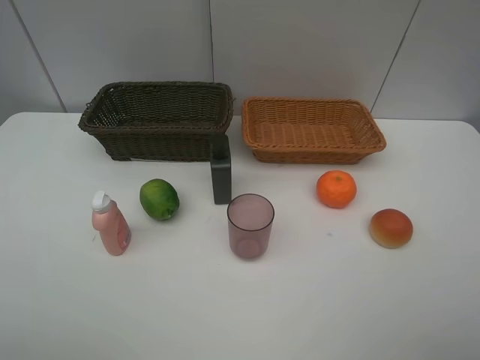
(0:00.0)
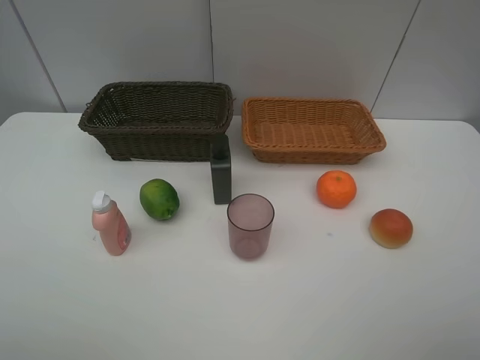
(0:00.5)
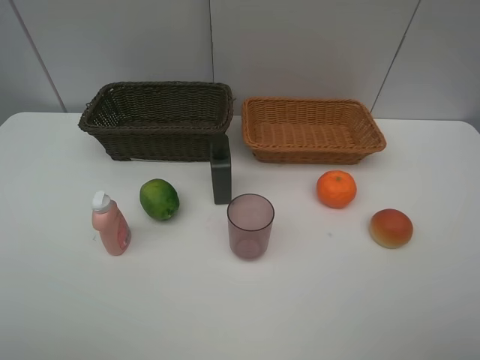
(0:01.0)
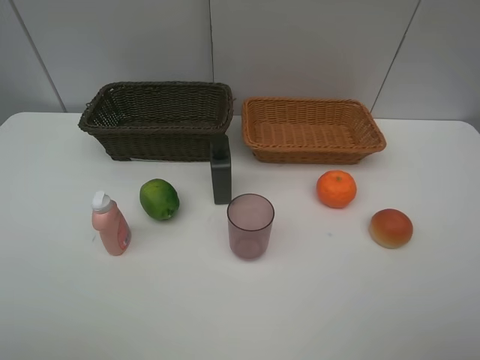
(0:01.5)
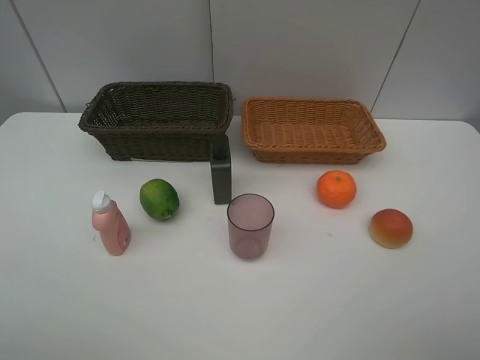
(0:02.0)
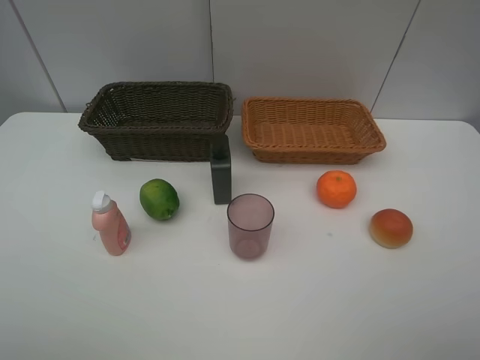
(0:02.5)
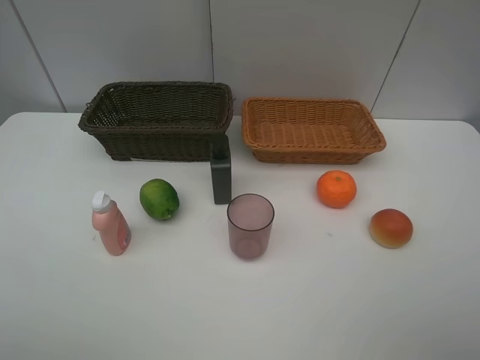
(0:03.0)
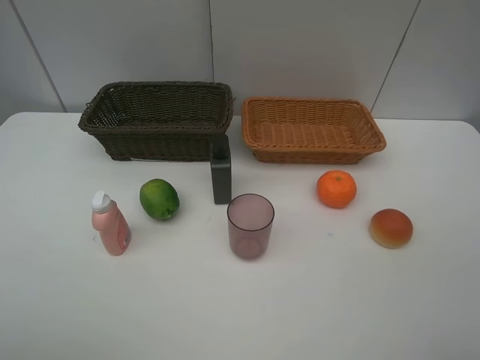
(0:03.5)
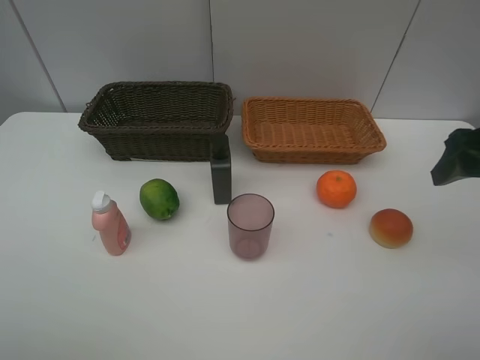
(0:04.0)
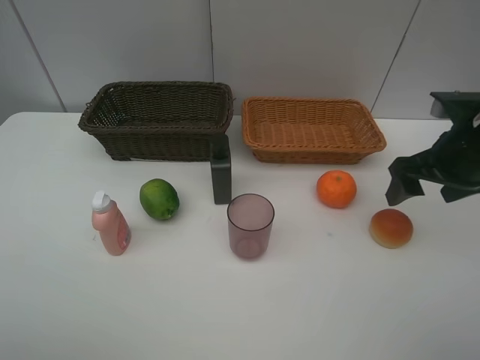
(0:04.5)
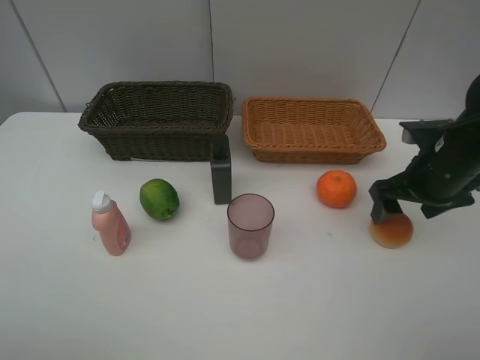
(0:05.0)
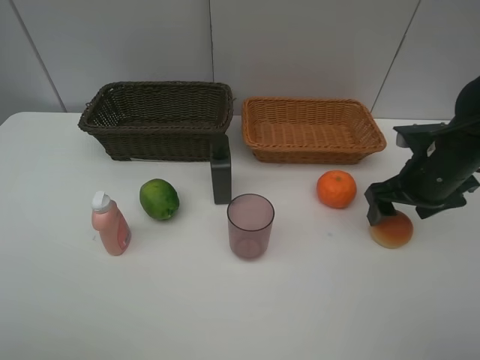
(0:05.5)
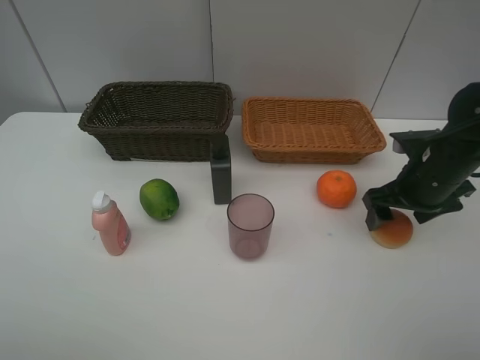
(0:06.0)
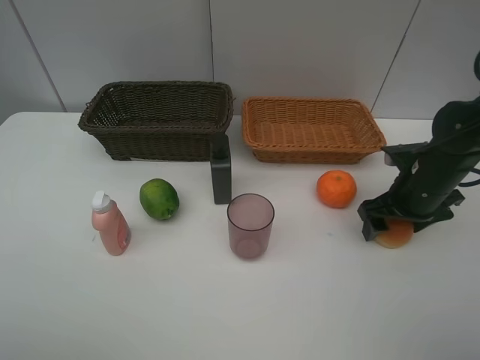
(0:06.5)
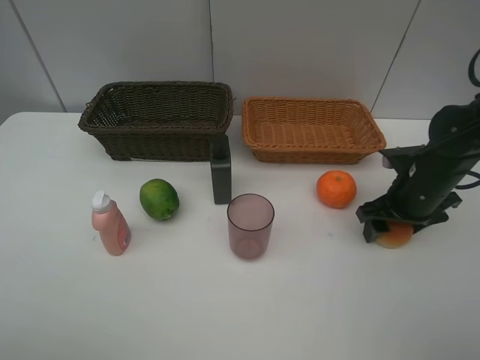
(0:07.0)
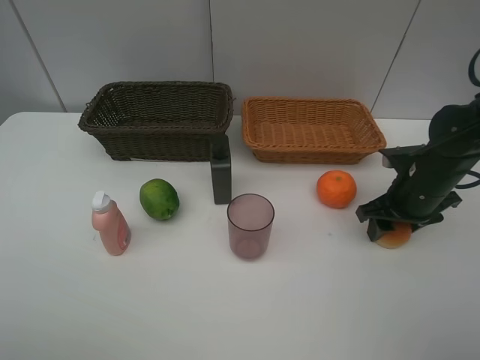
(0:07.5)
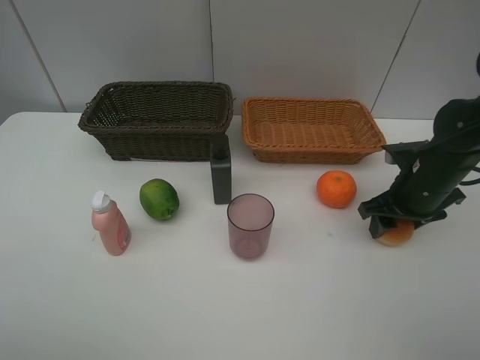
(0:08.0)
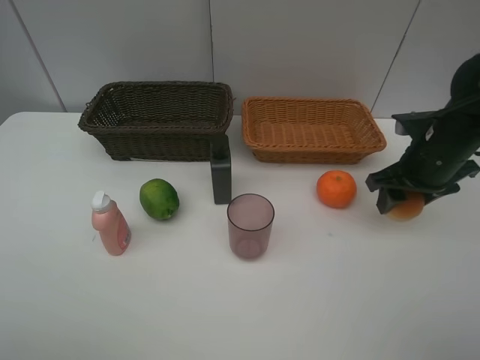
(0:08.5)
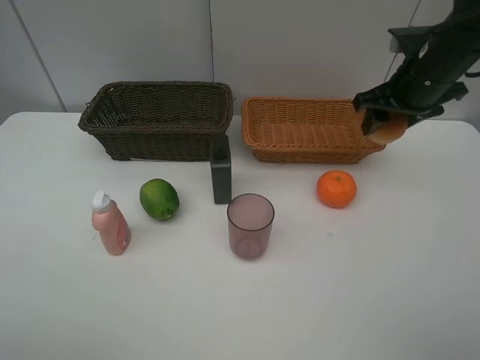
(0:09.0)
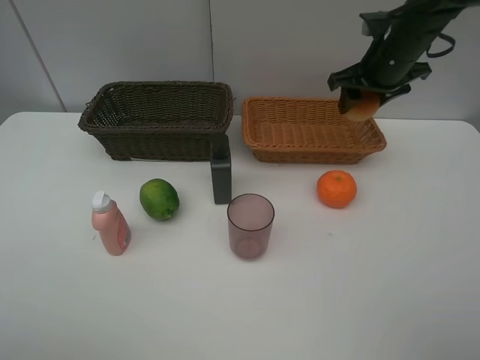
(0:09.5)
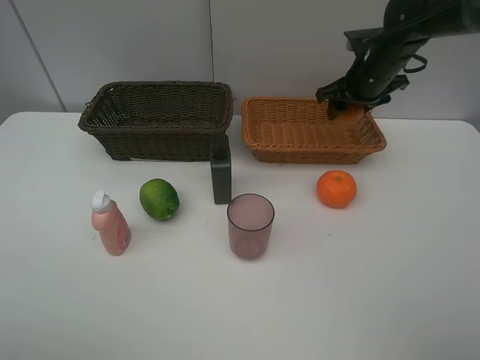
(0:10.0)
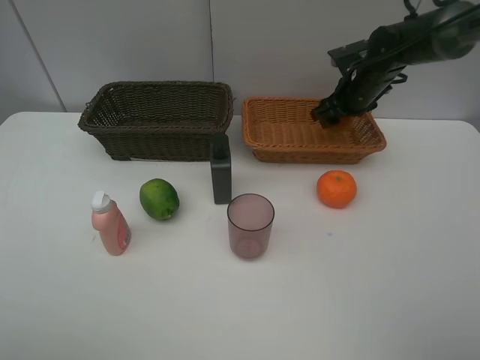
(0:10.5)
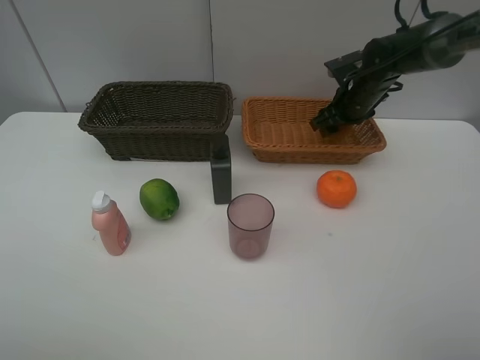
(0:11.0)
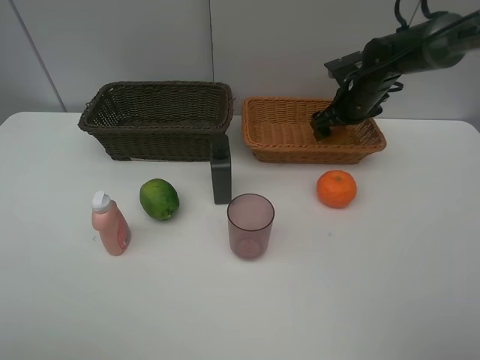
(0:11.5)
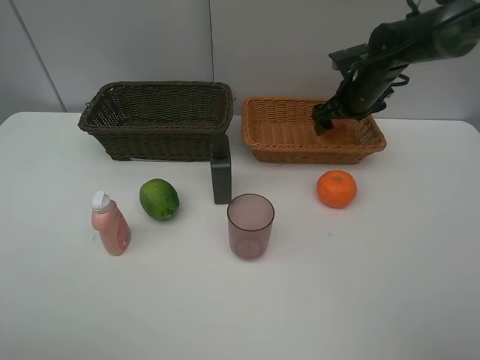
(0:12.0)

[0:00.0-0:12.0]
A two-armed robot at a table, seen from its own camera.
Task of the whole recording: place multiple objects separately in different baskets.
0:00.0 to 0:02.0: The two grippers keep their place.
0:02.0 to 0:04.0: The right gripper shifts some 20 cm forward.
0:04.0 to 0:06.0: The right gripper shifts roughly 15 cm downward and forward.
0:06.0 to 0:08.0: The right gripper closes up.
0:08.0 to 0:10.0: The right gripper shifts about 20 cm forward and upward.
0:10.0 to 0:12.0: The right gripper opens.

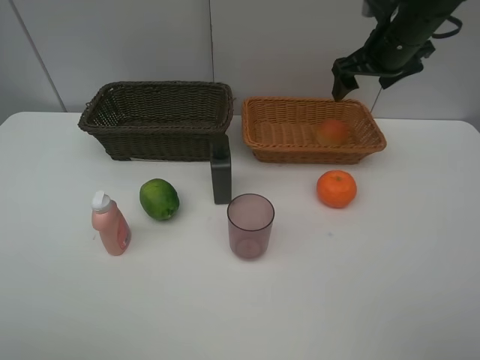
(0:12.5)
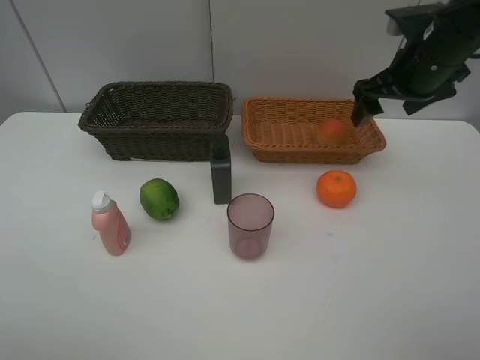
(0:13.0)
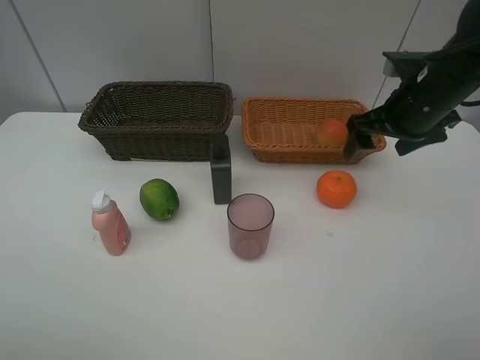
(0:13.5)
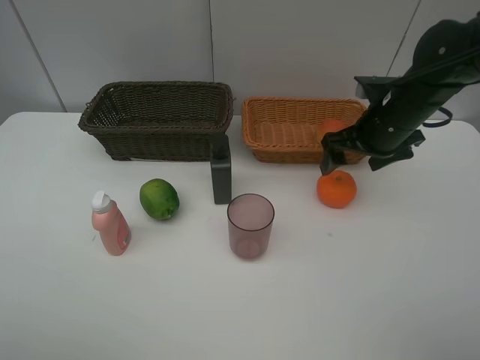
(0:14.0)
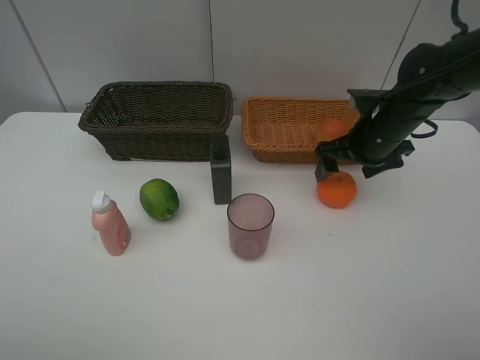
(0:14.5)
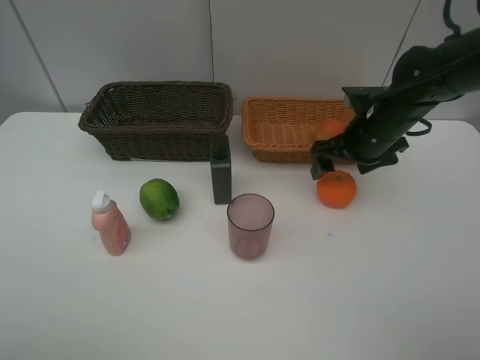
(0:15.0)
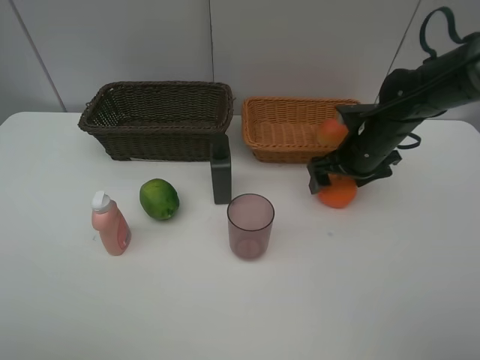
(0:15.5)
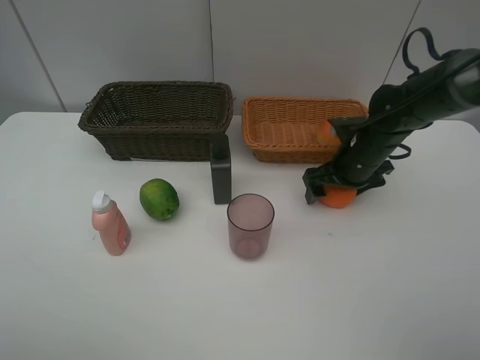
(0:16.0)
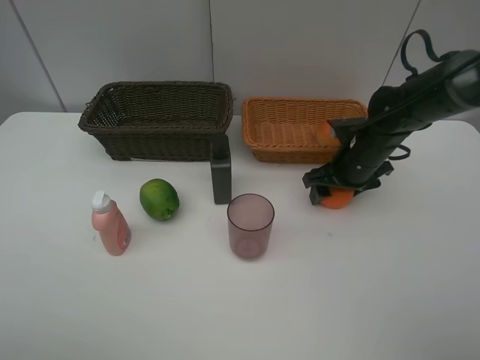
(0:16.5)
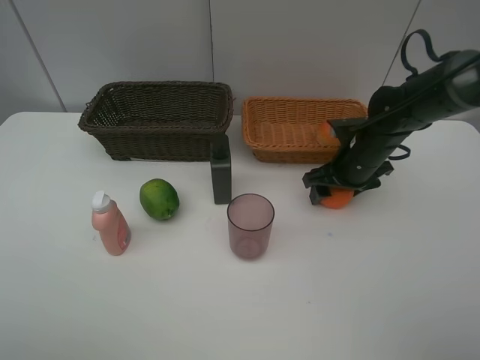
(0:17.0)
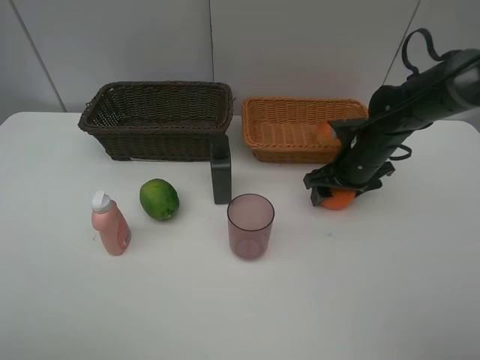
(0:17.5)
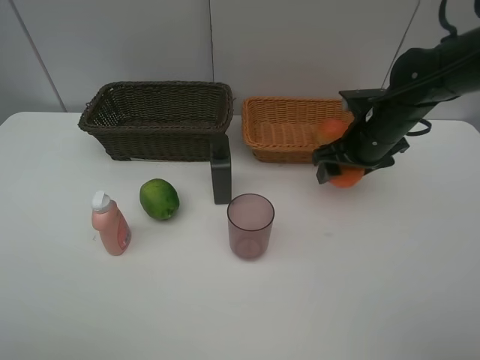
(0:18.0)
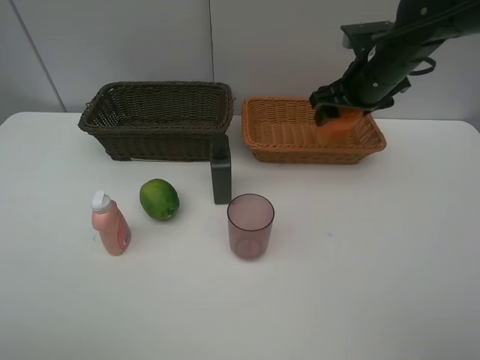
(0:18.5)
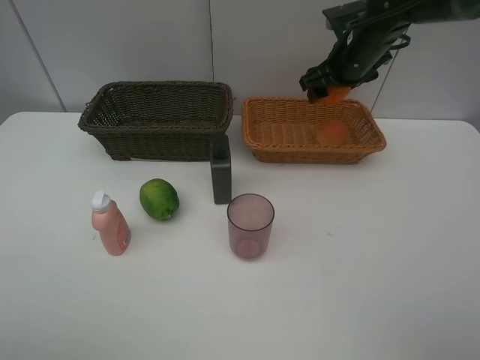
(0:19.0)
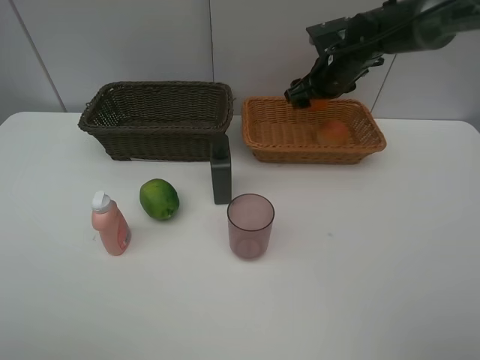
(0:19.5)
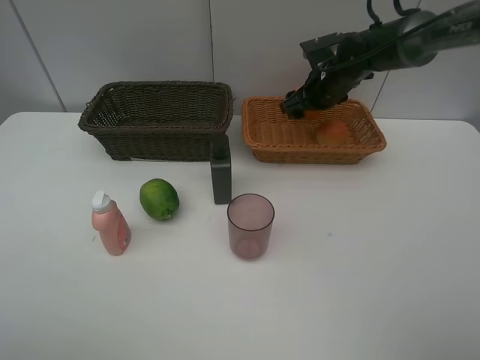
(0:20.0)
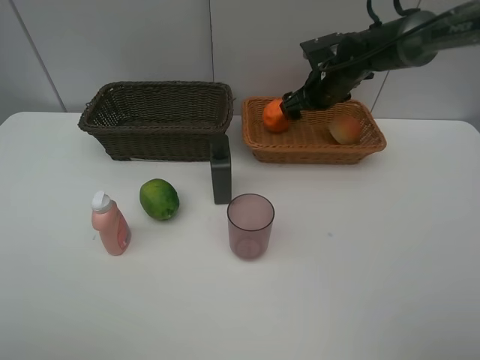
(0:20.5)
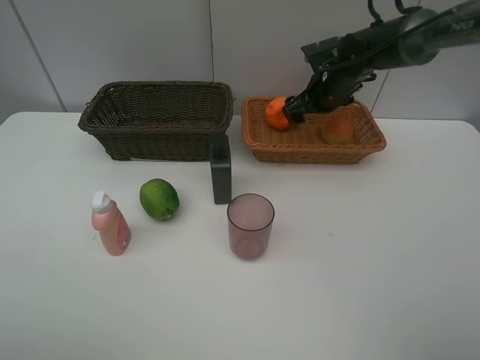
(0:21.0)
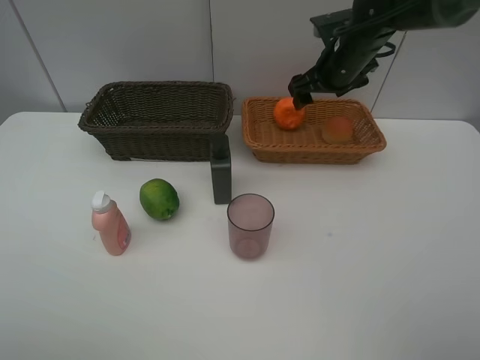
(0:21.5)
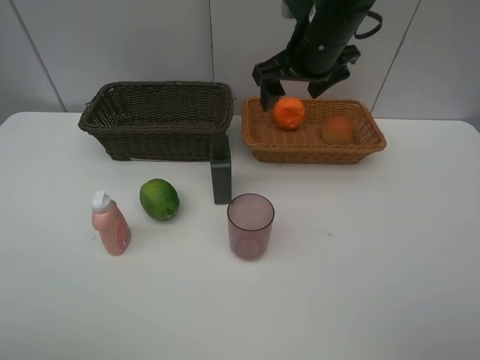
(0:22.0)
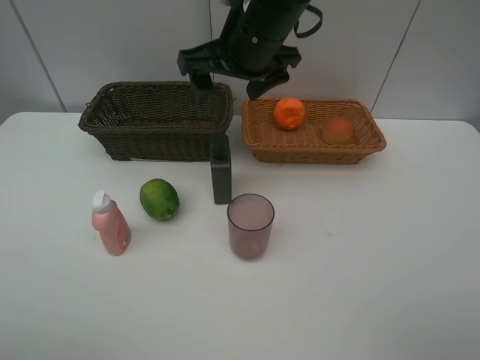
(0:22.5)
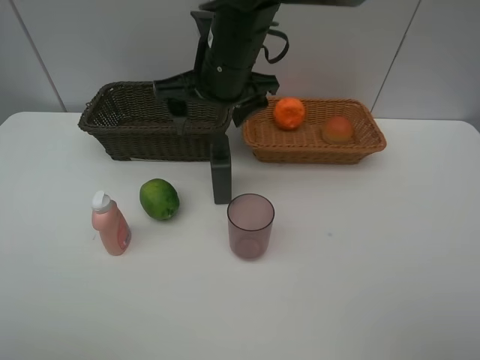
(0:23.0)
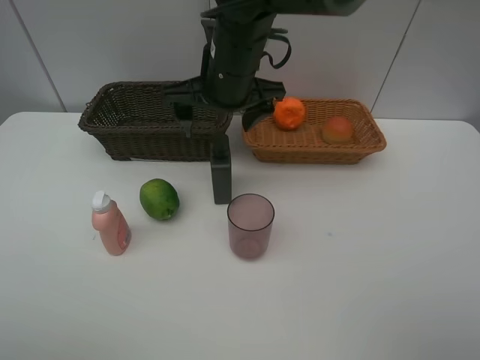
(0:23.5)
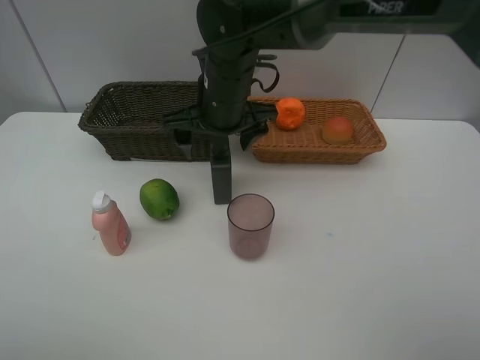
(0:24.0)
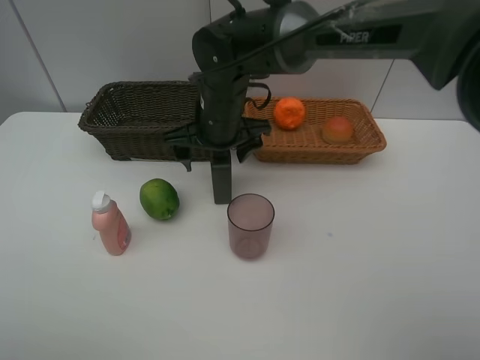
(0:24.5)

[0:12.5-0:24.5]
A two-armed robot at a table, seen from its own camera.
Task of the whole recording: place multiple objects separately in different baskets.
0:12.5 to 0:14.5: The right gripper is displaced downward and backward by approximately 15 cm.
0:14.5 to 0:16.5: The right gripper goes about 5 cm downward, and closes its fingers.
0:16.5 to 0:18.5: The right gripper moves upward, approximately 10 cm.
0:18.5 to 0:20.5: The right gripper travels forward and downward by roughly 10 cm.
0:20.5 to 0:22.5: The right gripper moves to the left, backward and upward, roughly 25 cm.
0:22.5 to 0:24.5: The right gripper moves downward and to the left, about 10 cm.

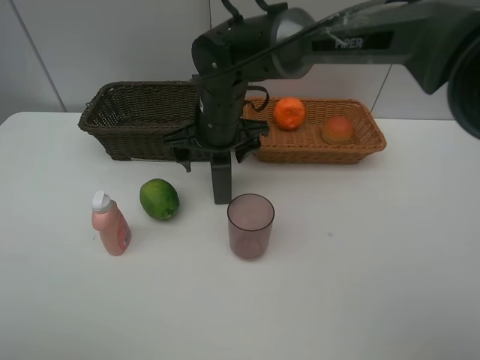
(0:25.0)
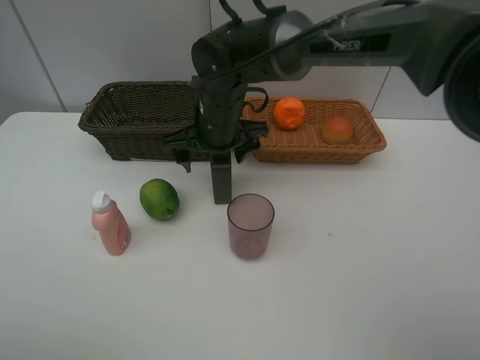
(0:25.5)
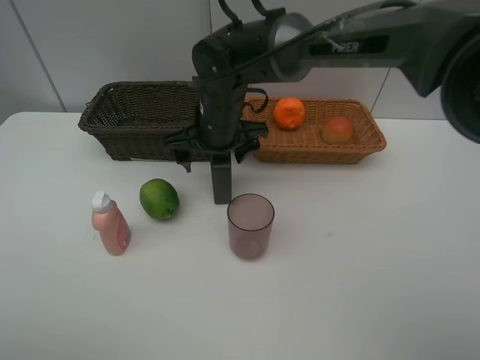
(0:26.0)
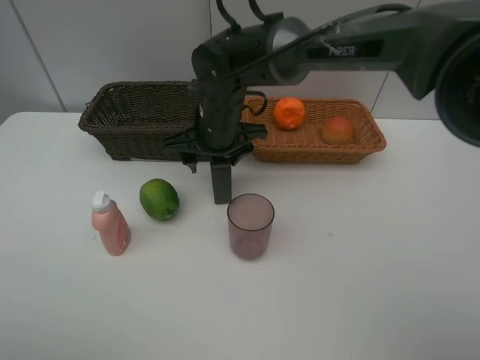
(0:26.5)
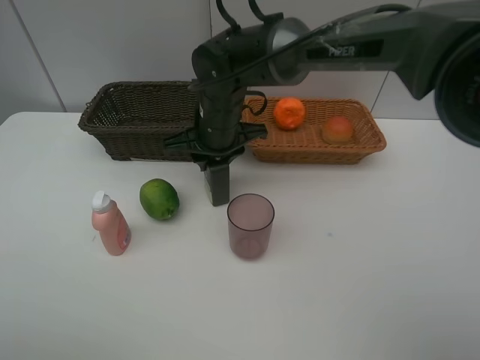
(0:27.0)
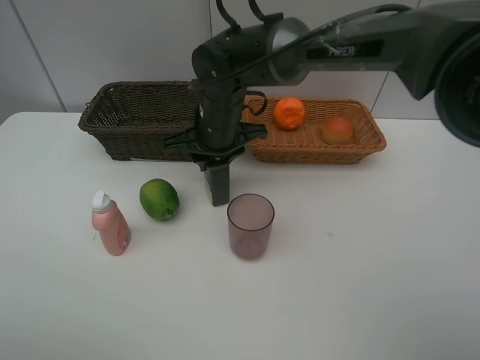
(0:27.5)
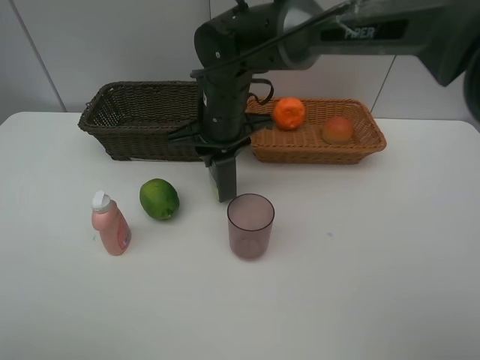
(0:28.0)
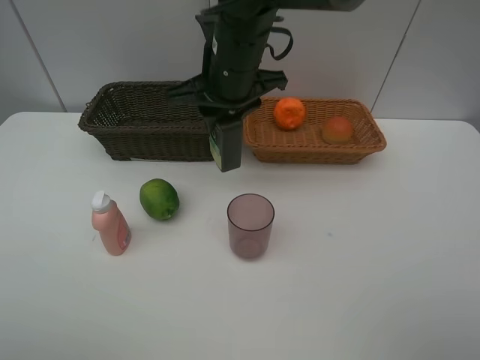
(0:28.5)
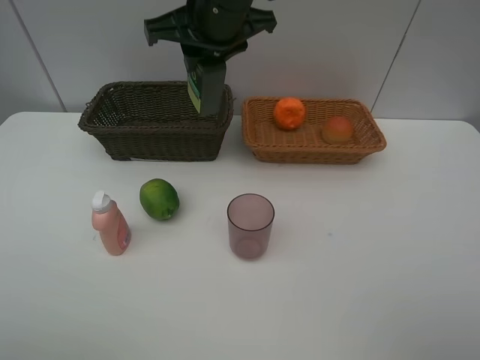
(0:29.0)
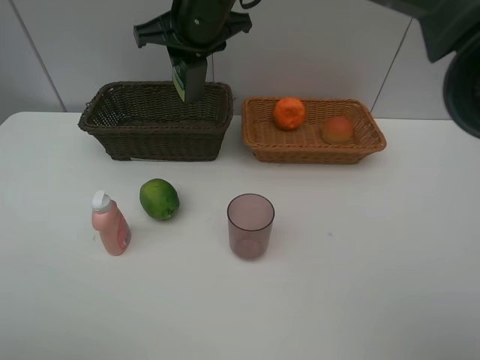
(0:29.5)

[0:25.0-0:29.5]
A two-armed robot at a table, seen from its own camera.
Task of the whole recording: place multiple objects separately in different baskets.
0:25.0 to 0:27.0: The right gripper closes its fingers.
0:27.0 to 0:29.5: The right gripper heads upward, covering roughly 15 cm.
